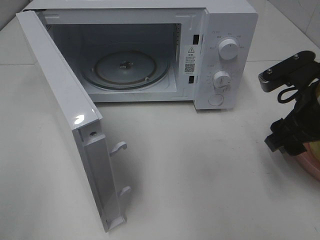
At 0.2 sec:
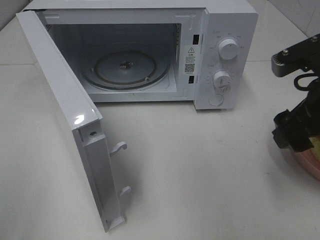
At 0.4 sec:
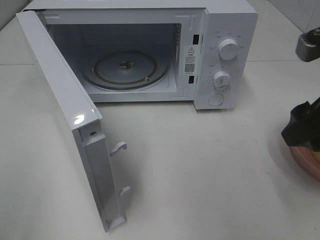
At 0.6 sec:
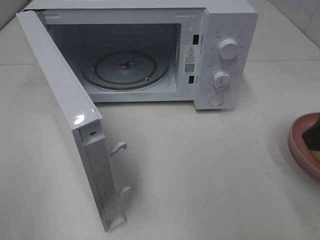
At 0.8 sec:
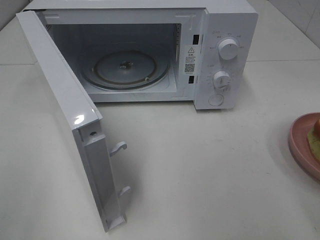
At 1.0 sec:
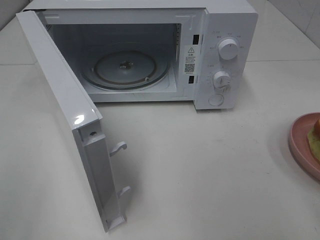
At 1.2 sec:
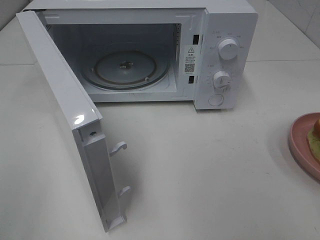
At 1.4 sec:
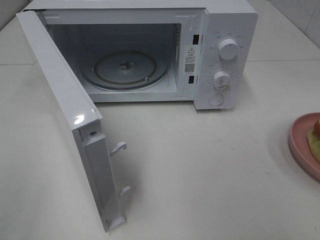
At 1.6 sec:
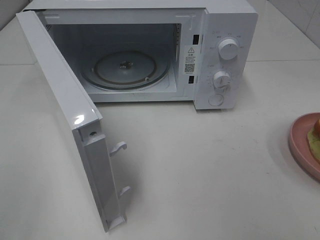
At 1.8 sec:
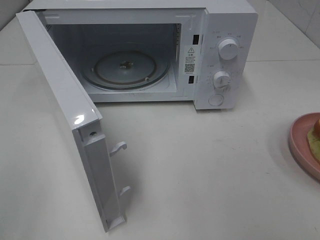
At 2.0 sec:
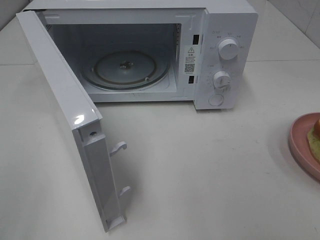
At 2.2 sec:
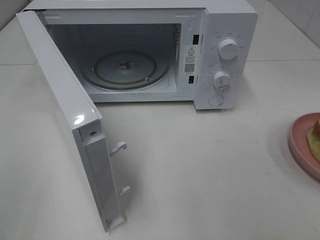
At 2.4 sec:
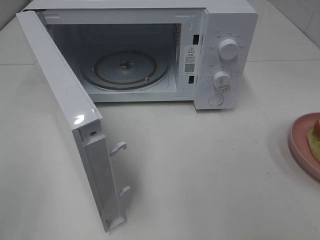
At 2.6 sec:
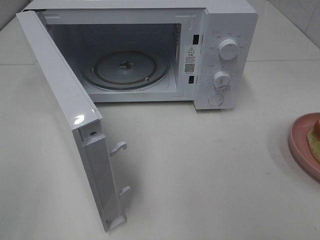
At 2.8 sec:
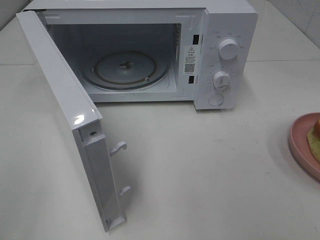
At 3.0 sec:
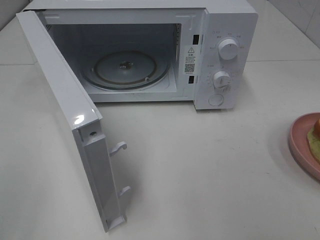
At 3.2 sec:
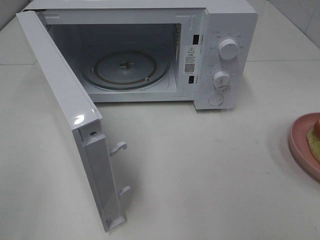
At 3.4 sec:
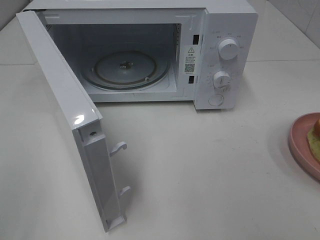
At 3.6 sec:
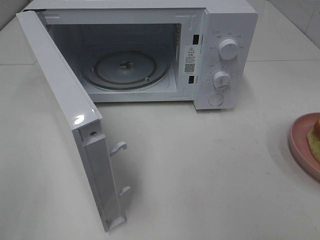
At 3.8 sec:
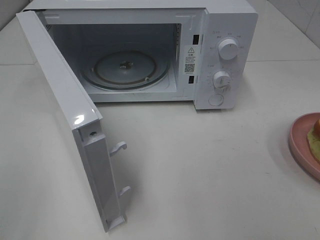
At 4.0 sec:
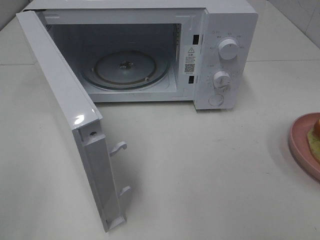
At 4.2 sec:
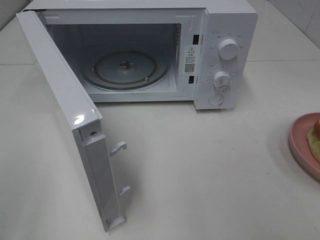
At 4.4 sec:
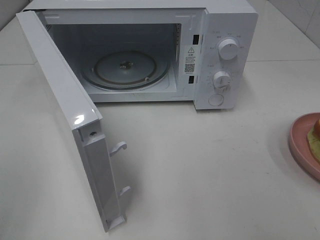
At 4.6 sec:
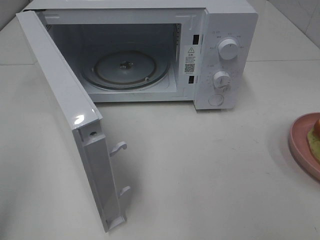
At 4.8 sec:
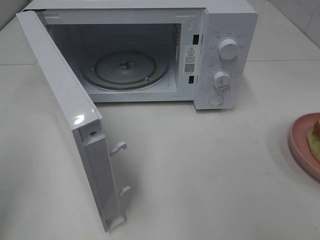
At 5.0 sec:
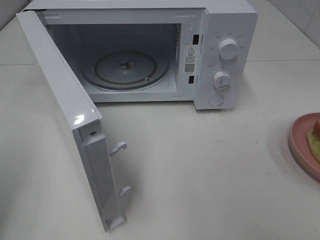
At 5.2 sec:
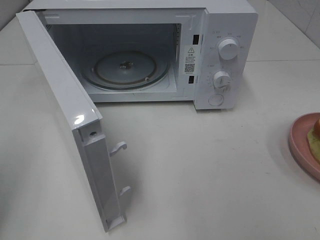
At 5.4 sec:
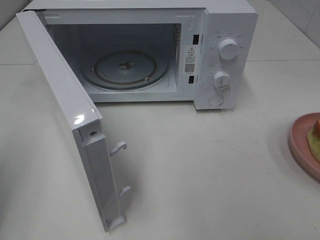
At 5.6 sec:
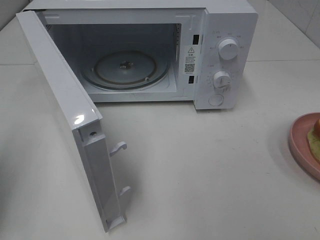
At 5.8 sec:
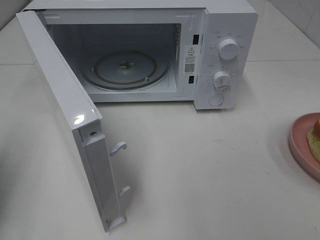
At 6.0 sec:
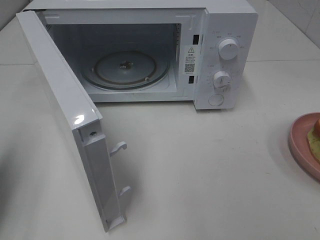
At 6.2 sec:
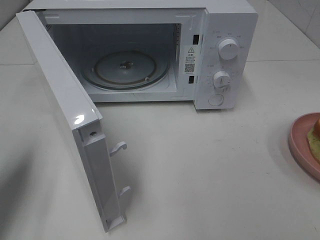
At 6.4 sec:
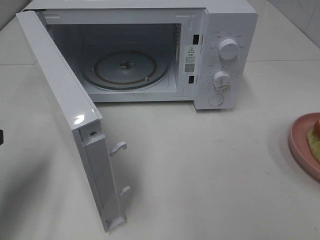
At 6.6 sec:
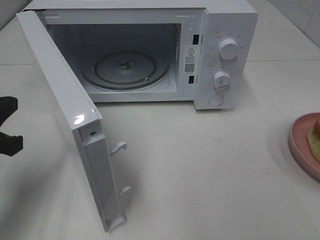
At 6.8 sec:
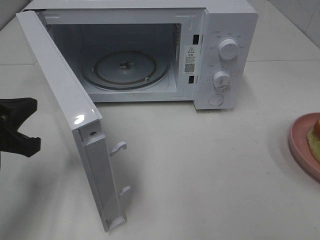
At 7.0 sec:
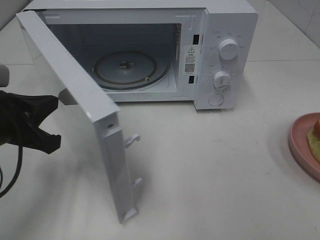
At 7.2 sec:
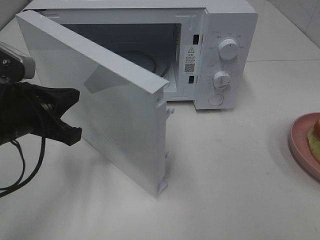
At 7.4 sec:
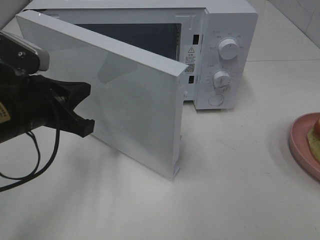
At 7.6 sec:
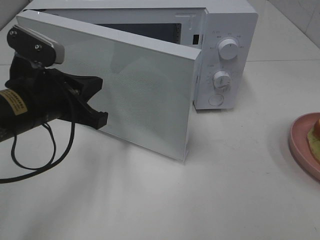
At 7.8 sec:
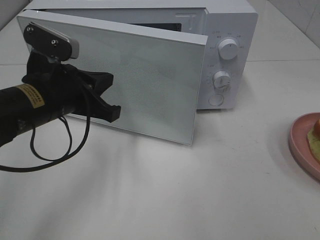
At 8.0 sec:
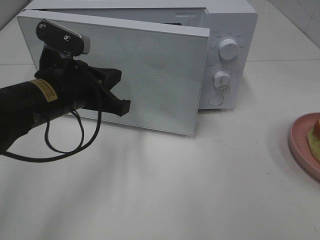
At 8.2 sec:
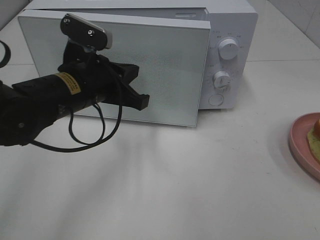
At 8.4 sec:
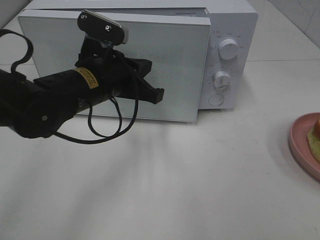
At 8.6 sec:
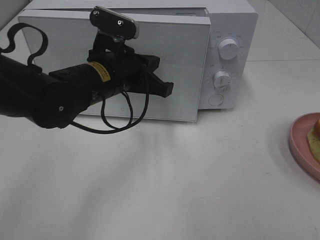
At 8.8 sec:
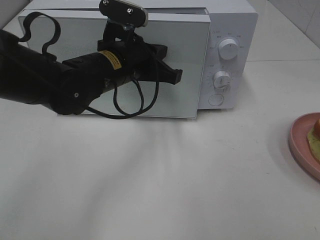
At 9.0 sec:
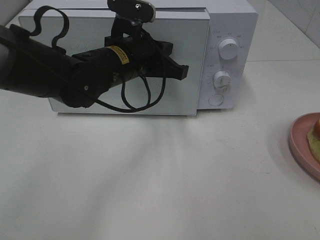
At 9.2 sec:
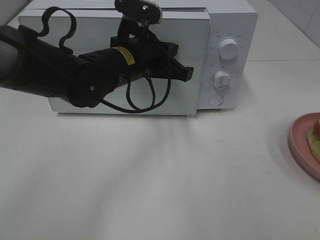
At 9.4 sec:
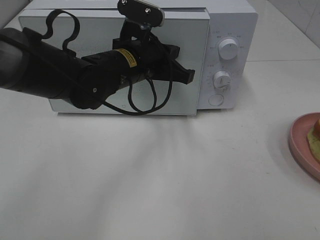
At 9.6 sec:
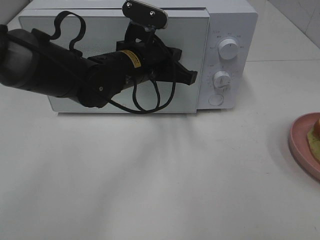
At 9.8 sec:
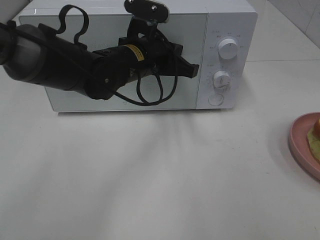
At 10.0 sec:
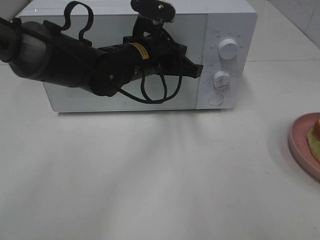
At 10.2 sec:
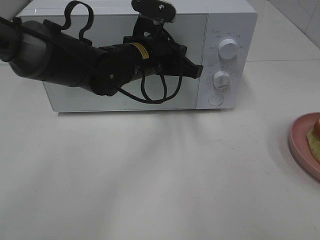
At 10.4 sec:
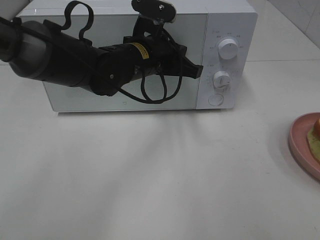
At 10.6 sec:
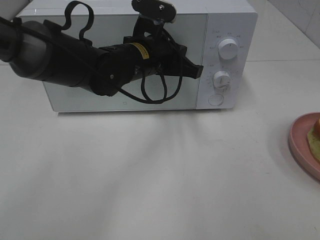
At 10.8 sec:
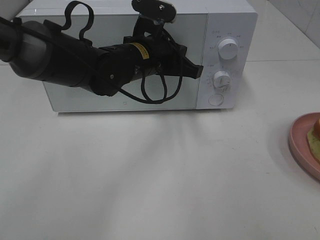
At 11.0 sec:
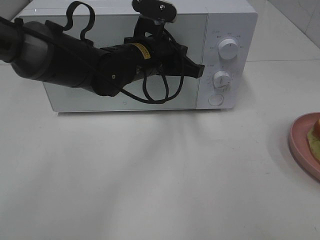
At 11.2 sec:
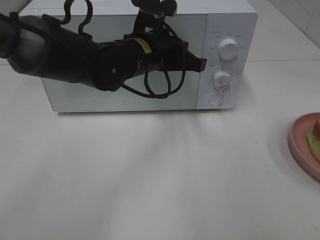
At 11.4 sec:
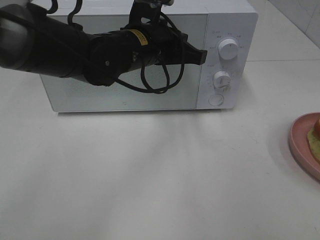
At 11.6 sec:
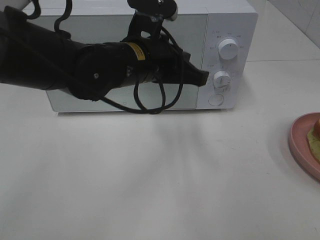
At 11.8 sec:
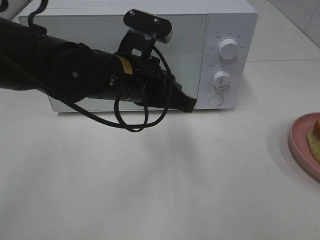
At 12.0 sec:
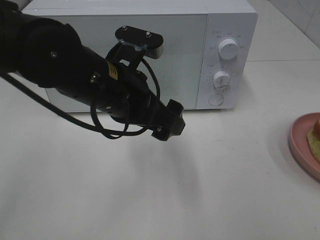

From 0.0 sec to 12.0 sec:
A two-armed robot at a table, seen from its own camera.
Task of the whole recording: Heat Sandwich.
Step, from 0.4 sec to 11.6 sec: Left hand: close the microwave door.
From 0.0 sec to 1.6 sec: The right gripper goes about 20 cm backward and upward.
From 4.4 sec to 6.0 sec: The left gripper is displaced forward and downward by roughly 15 cm, and closes up.
From 6.0 sec to 7.6 sec: The left gripper goes some 20 cm to the right and forward.
From 7.6 sec to 9.0 sec: The left gripper travels to the right and forward by some 15 cm.
From 9.0 sec to 10.4 sec: The grippers stay close to where they were, moving slightly.
From 10.4 sec to 12.0 sec: The left gripper goes roughly 10 cm backward, and opens.

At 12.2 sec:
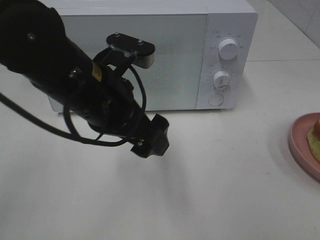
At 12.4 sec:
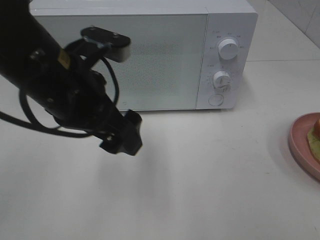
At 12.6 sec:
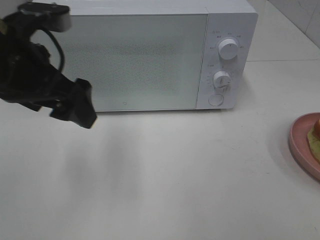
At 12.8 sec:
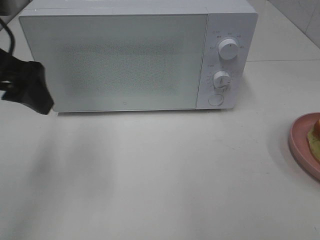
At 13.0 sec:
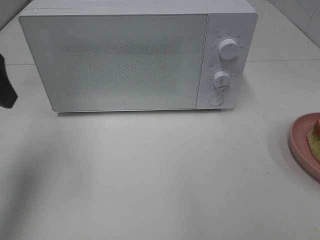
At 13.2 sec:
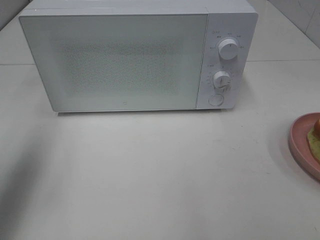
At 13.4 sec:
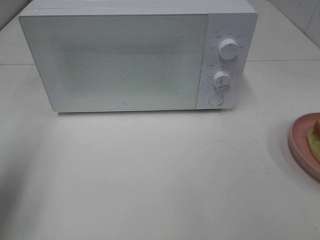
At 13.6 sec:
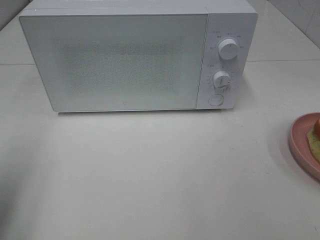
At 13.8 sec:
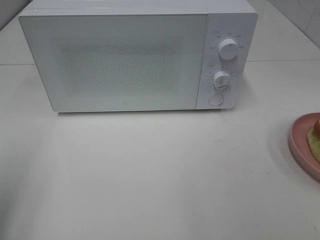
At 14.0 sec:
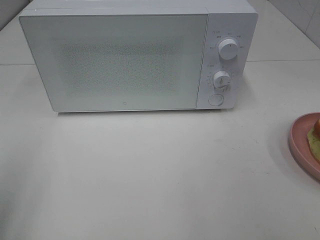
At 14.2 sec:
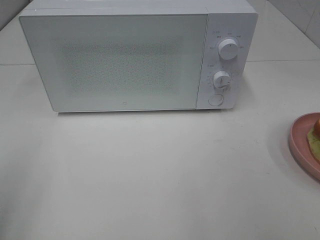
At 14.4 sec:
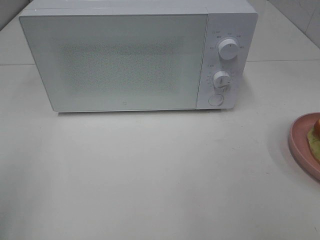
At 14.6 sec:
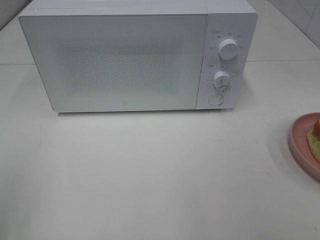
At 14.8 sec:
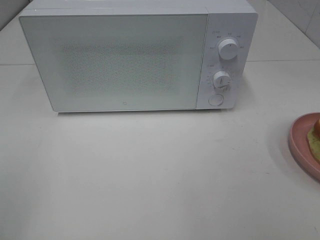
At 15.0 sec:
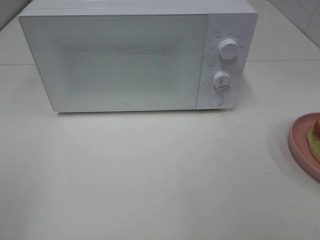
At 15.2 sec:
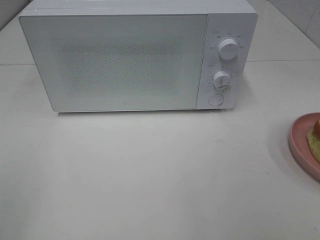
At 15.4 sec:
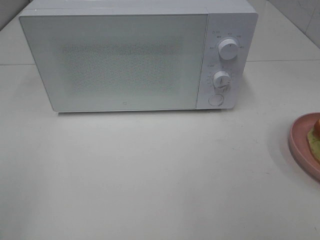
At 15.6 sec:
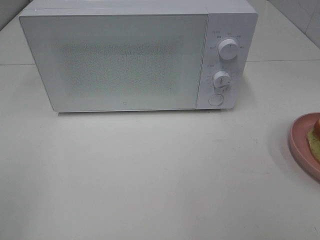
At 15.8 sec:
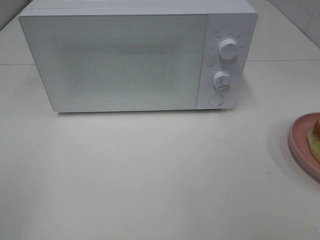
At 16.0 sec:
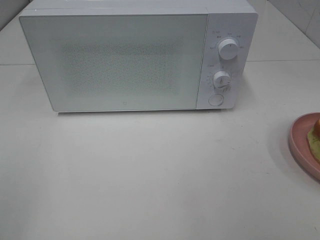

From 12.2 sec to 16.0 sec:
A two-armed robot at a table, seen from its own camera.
Task of the whole recording: Heat Sandwich.
From 12.2 sec to 13.4 sec: The left gripper goes some 25 cm to the left.
From 13.4 sec to 14.8 sec: The left gripper moves backward, some 15 cm.
From 14.8 sec to 16.0 sec: Both grippers stay about where they are.
